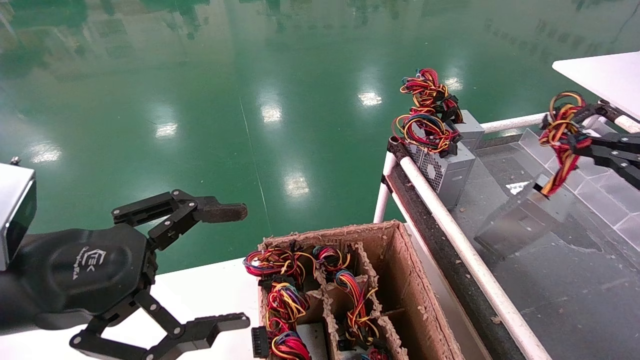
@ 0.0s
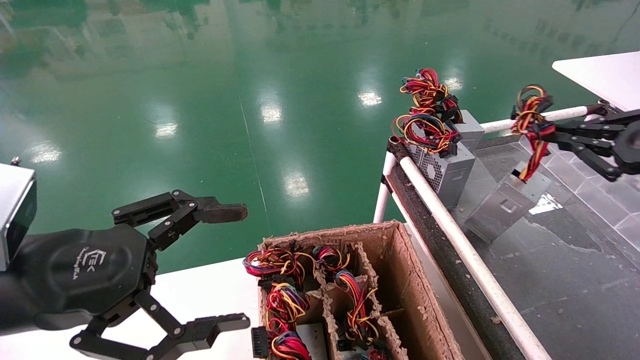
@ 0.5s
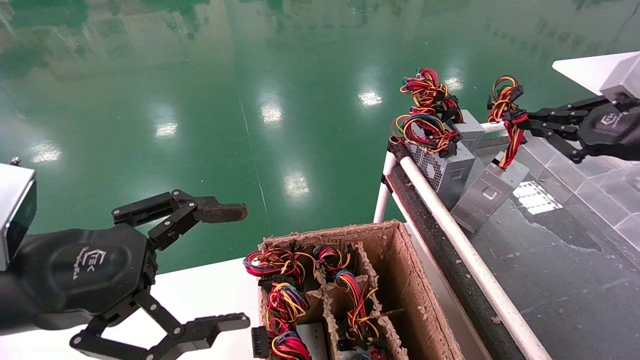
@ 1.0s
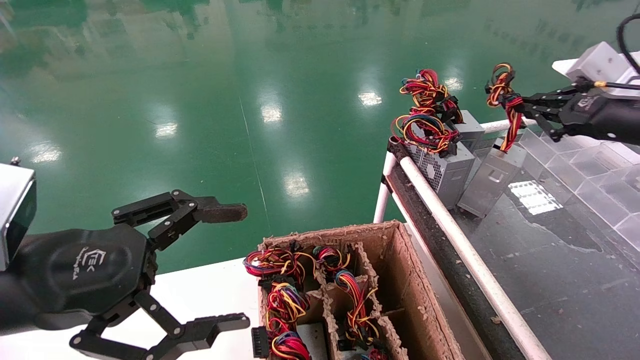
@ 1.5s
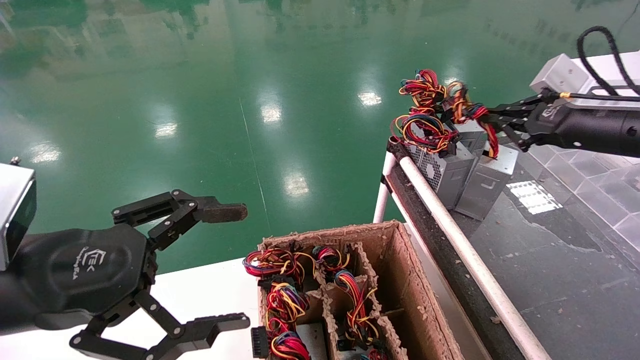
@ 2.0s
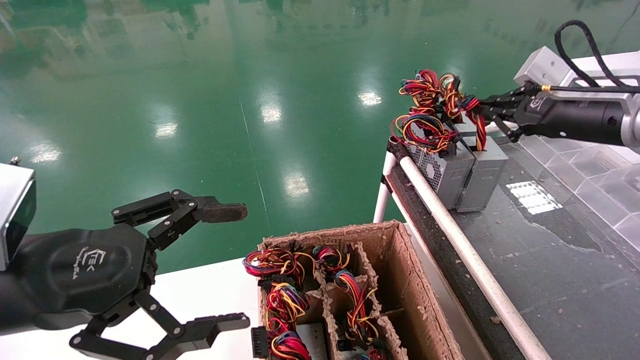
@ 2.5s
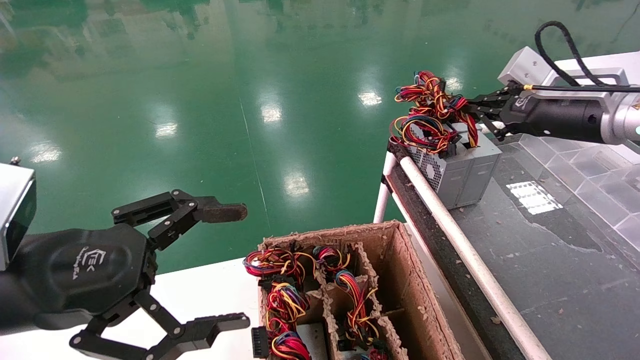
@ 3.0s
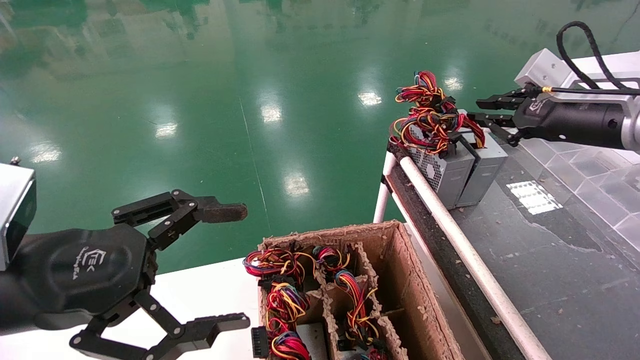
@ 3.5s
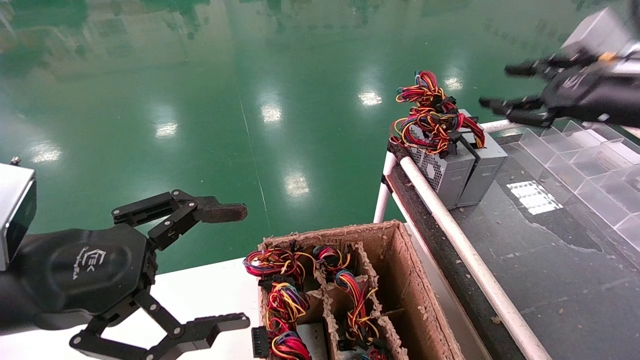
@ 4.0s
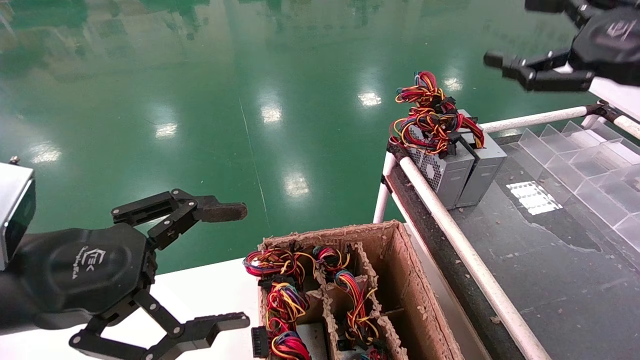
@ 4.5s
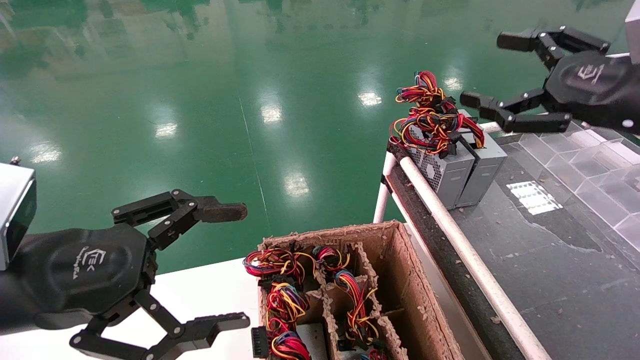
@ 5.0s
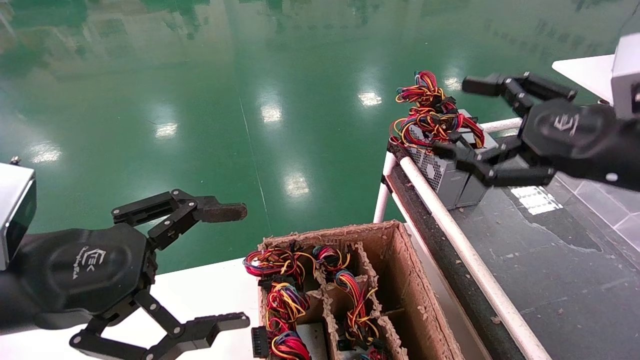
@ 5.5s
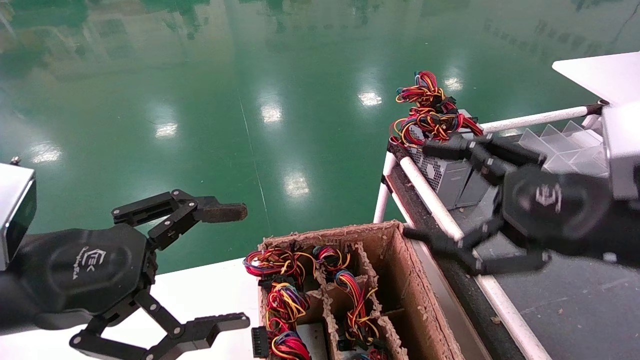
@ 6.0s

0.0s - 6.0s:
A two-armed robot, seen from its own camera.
Step, 0.0s - 3.0s: Place the power supply on the operating table.
0.0s - 2.0s: The right gripper travels forward and to the left by some 15 cm.
2.0s - 4.0s: The right gripper shifts by roughly 5 cm, and opens its fingers.
4.0s - 6.0s: The right gripper heads backward, downward and to the left, covering roughly 20 cm, and opens.

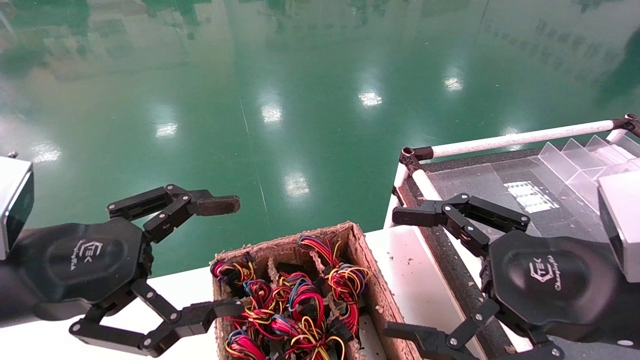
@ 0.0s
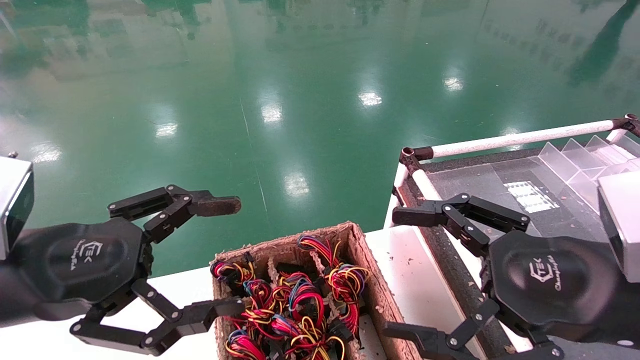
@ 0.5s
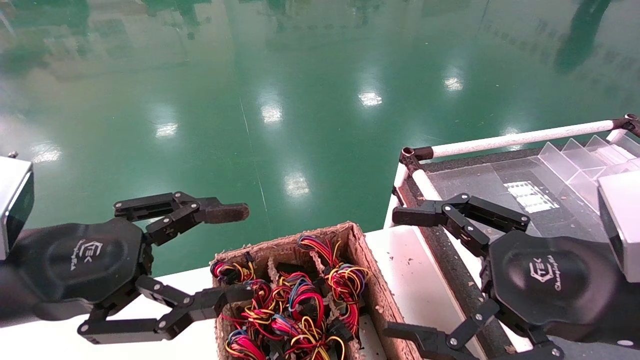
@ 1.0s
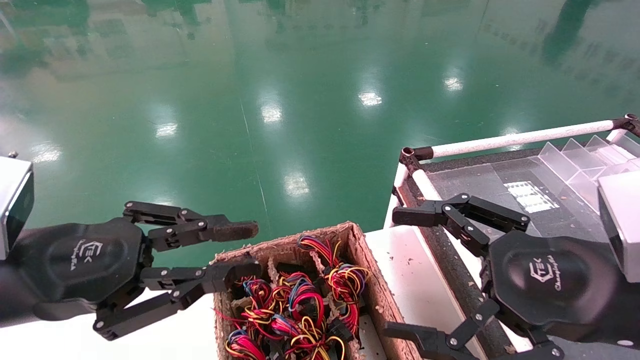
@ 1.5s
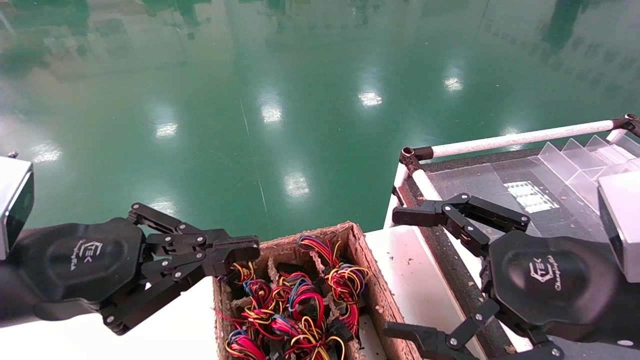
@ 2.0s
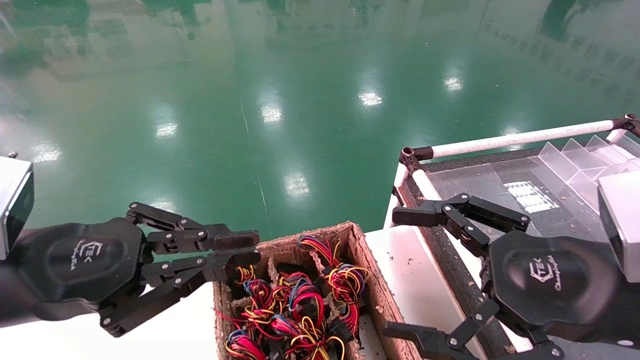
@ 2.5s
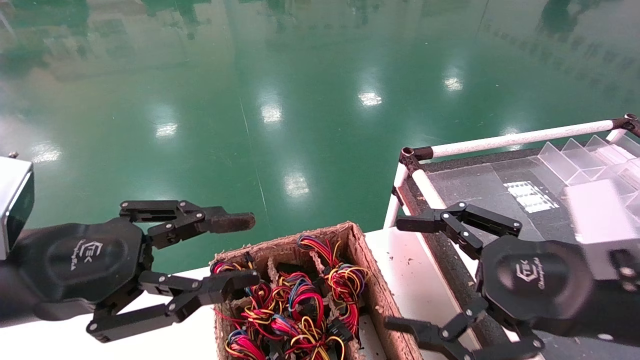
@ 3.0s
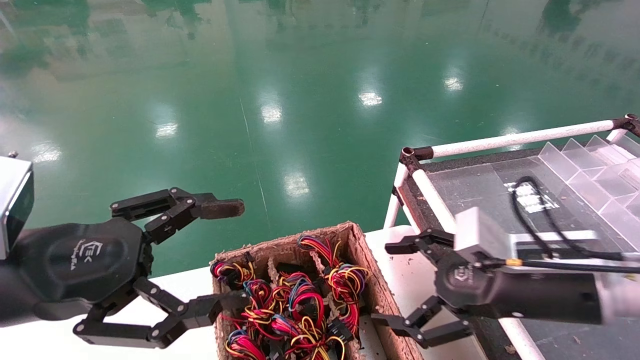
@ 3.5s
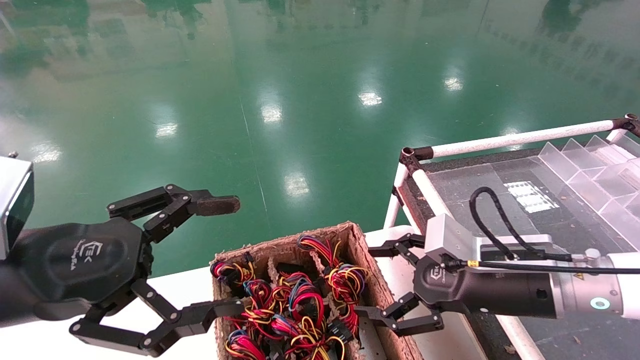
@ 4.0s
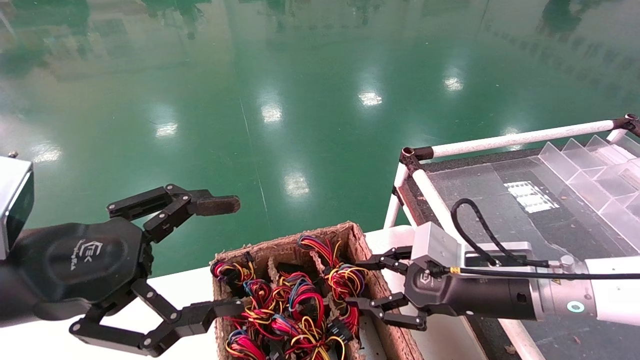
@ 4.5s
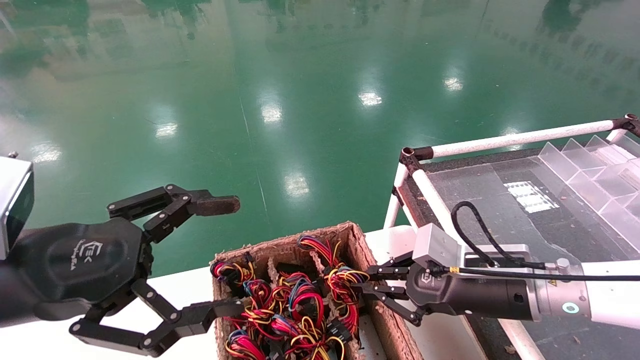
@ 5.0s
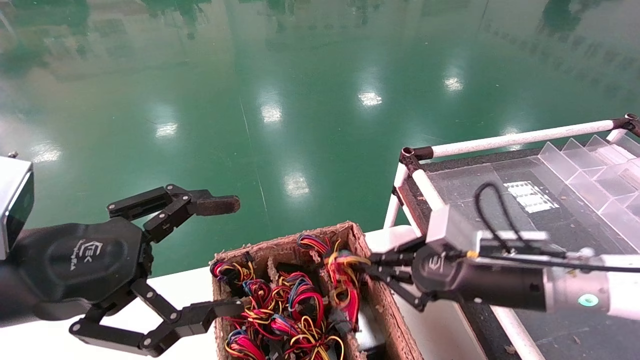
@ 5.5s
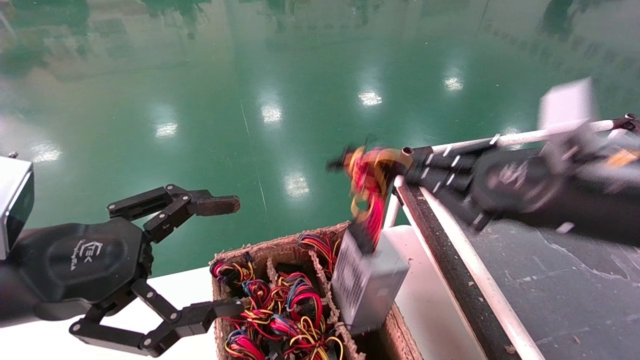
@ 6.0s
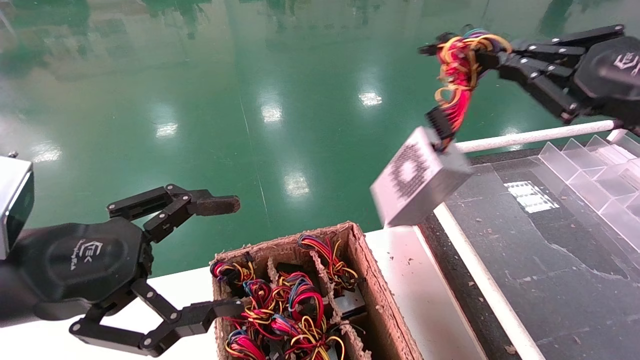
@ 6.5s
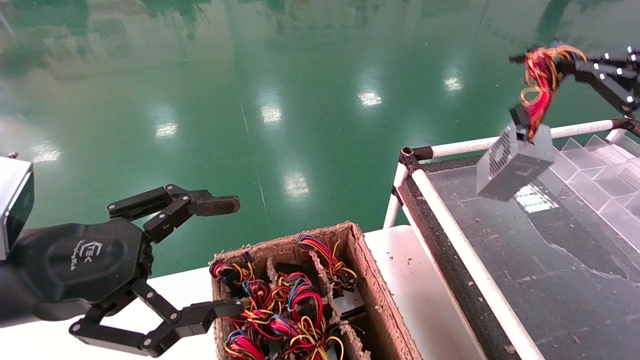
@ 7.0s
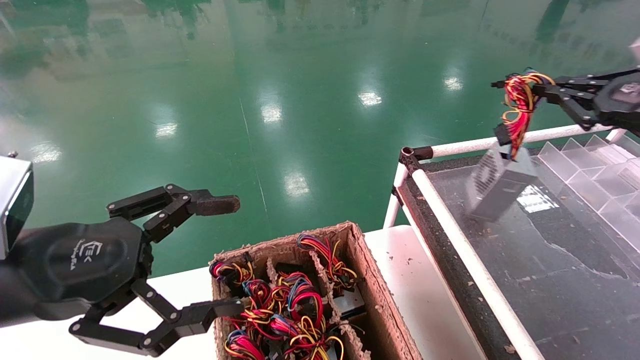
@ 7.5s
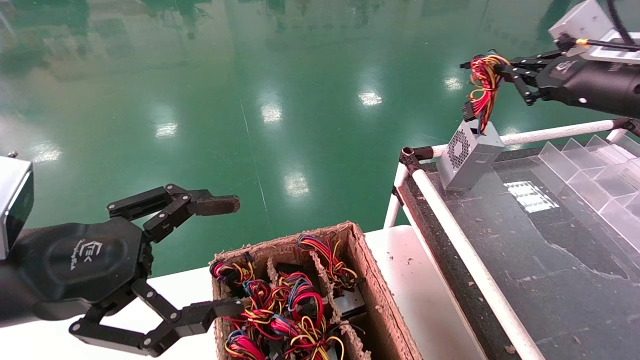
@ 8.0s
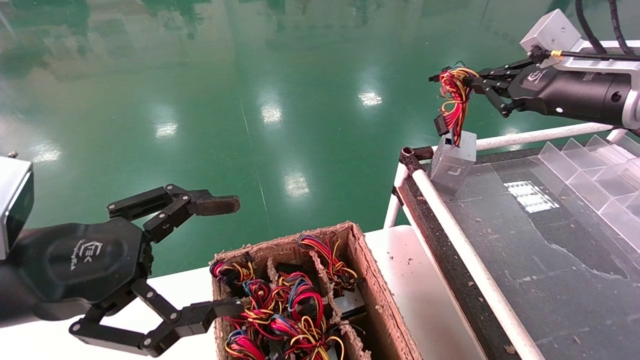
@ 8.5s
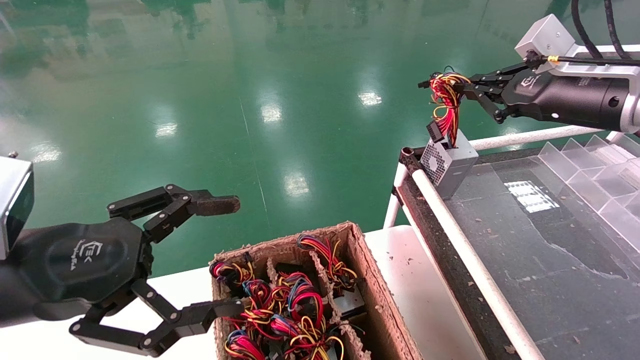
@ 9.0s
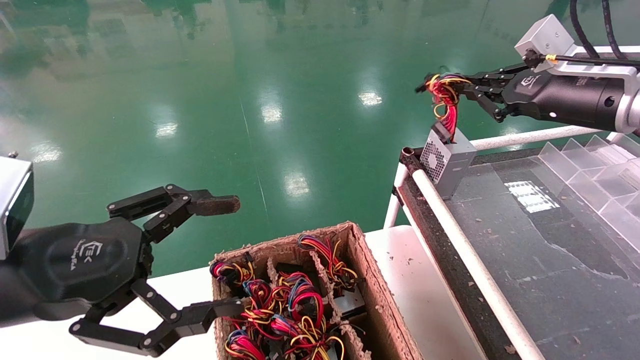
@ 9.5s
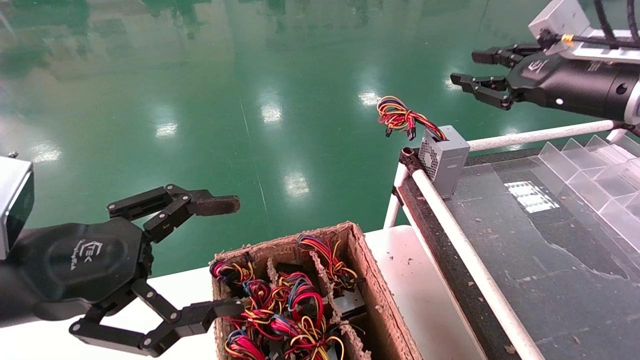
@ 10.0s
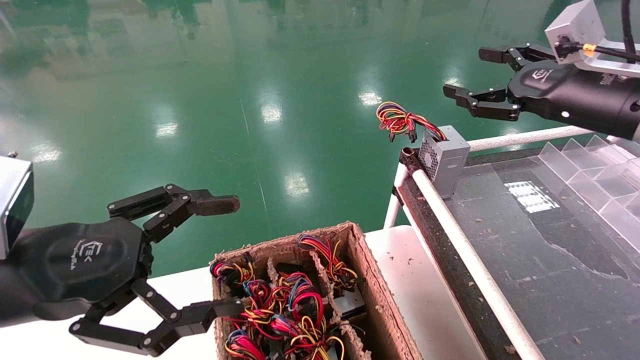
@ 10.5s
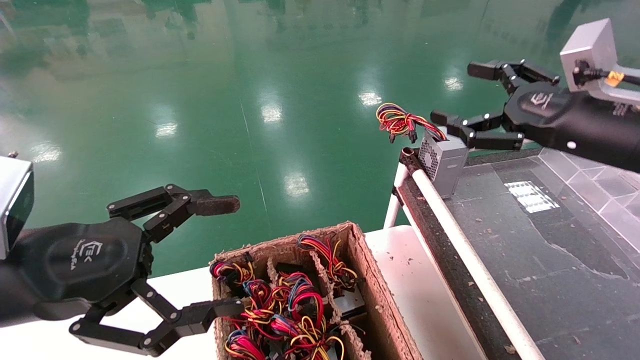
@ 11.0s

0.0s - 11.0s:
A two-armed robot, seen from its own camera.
Step, 2.5s - 5.0s: Grab and lift the power supply from the large box.
Step, 5.5s - 9.5s: Place the power supply on the operating table.
0.0s - 2.0s: The left gripper closes up.
2.0s - 3.5s: The right gripper heads forward, covering about 10 cm; the left gripper opens.
3.5s - 5.5s: The right gripper closes its fingers.
5.5s - 7.5s: The right gripper moves to the right and upward, about 25 cm.
7.5s - 9.0s: The right gripper is displaced to the left by about 10 cm.
9.0s - 11.0s: The right gripper goes roughly 5 cm backward, and opens.
